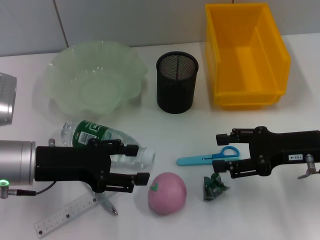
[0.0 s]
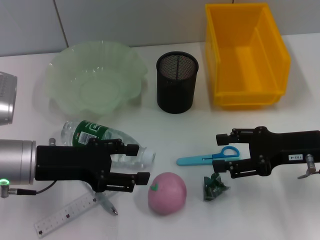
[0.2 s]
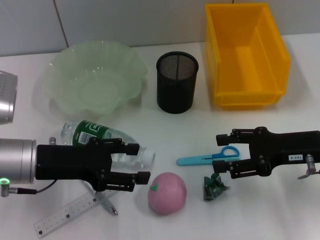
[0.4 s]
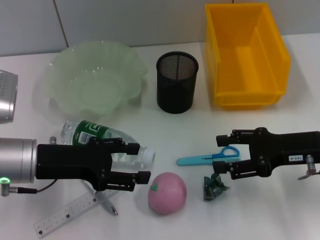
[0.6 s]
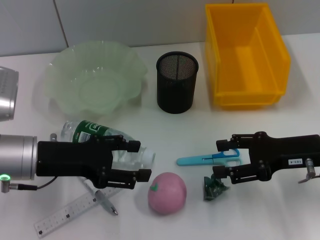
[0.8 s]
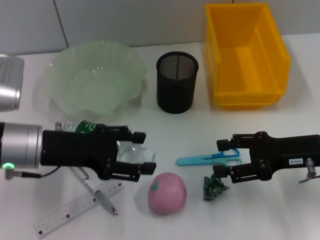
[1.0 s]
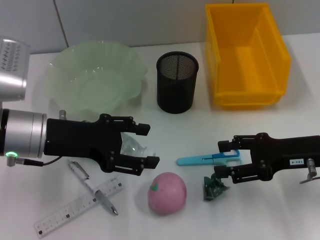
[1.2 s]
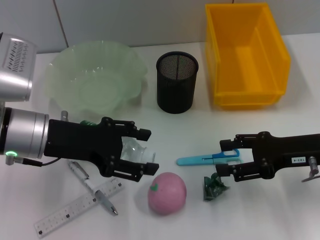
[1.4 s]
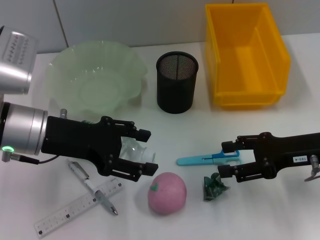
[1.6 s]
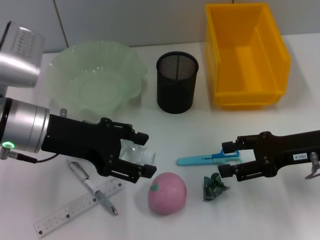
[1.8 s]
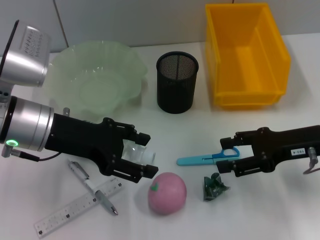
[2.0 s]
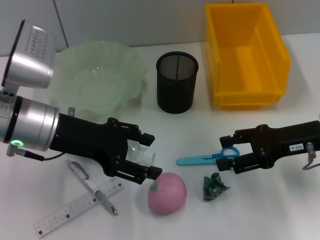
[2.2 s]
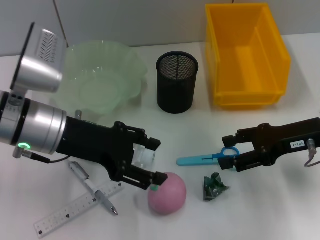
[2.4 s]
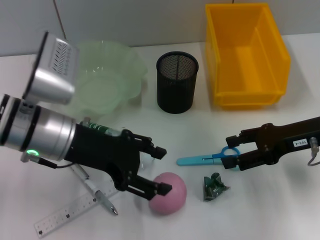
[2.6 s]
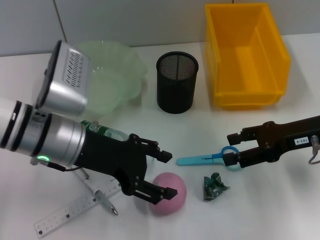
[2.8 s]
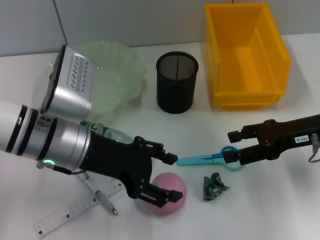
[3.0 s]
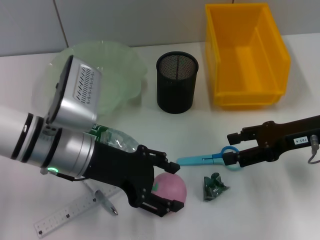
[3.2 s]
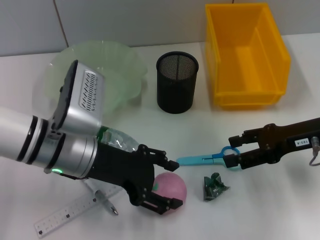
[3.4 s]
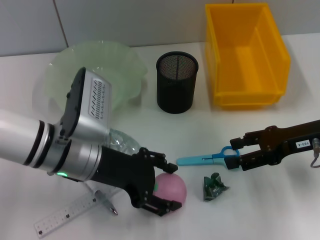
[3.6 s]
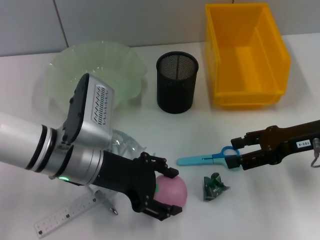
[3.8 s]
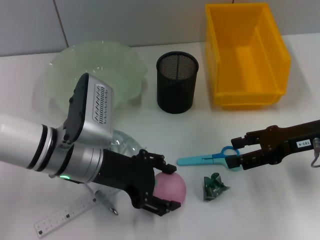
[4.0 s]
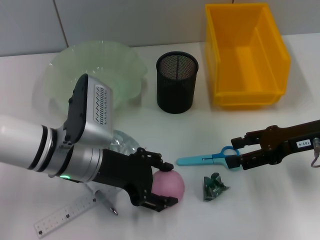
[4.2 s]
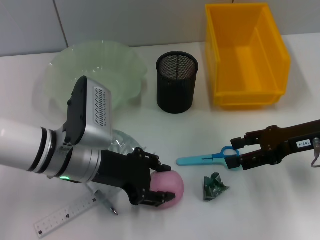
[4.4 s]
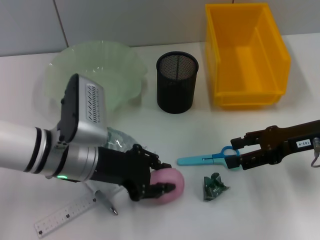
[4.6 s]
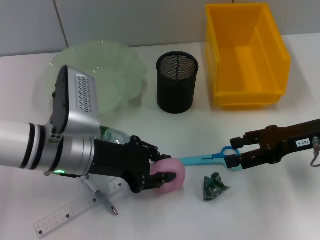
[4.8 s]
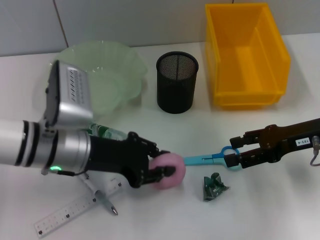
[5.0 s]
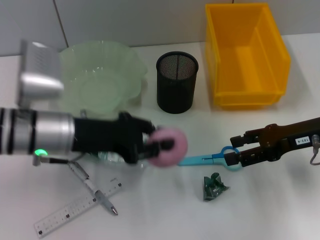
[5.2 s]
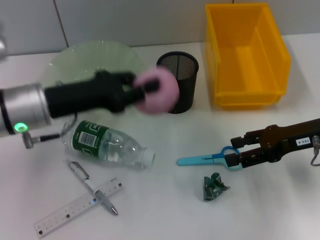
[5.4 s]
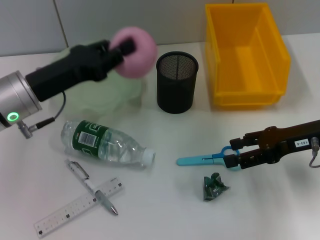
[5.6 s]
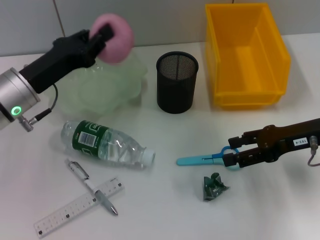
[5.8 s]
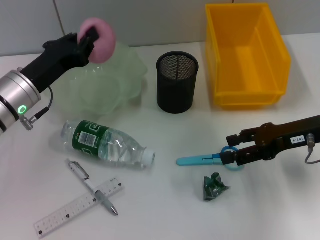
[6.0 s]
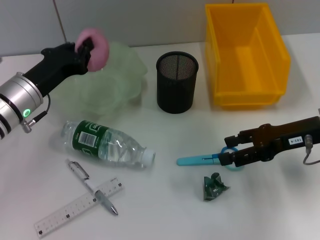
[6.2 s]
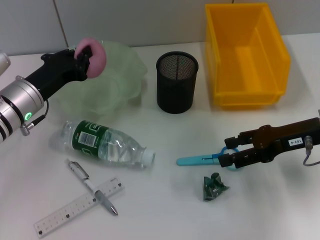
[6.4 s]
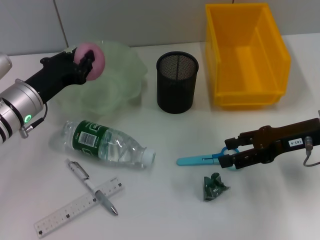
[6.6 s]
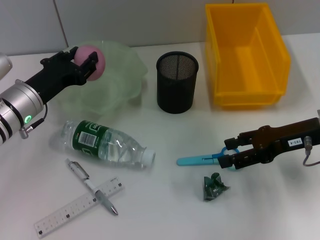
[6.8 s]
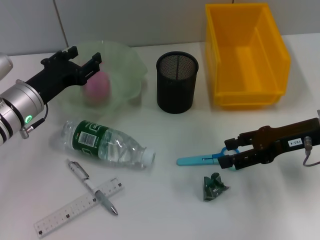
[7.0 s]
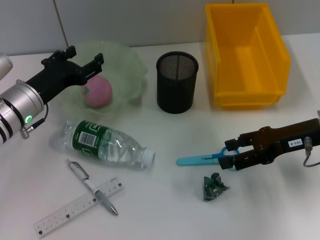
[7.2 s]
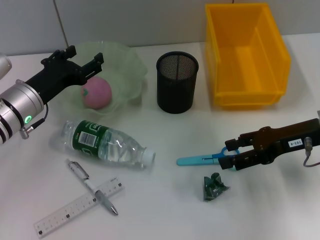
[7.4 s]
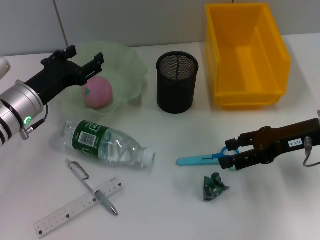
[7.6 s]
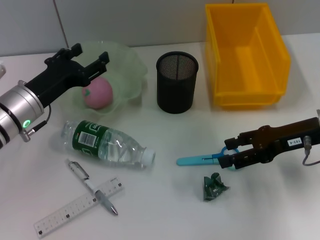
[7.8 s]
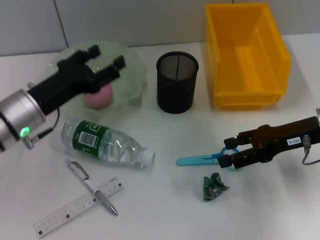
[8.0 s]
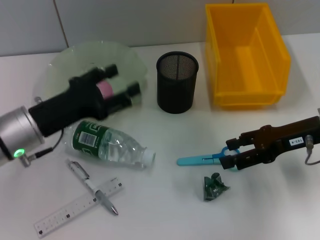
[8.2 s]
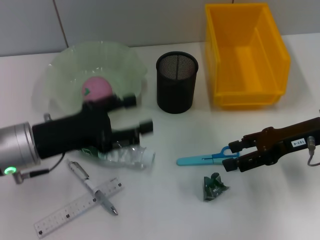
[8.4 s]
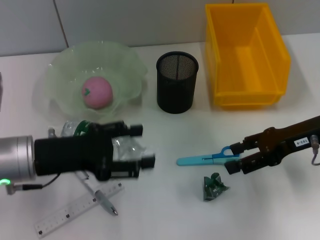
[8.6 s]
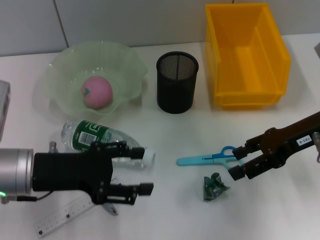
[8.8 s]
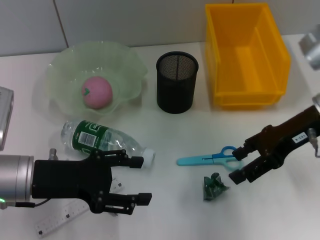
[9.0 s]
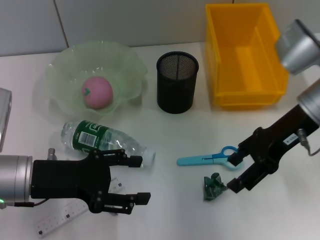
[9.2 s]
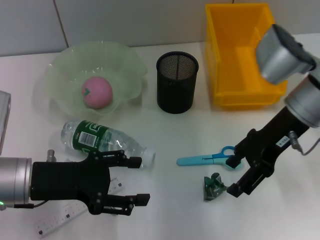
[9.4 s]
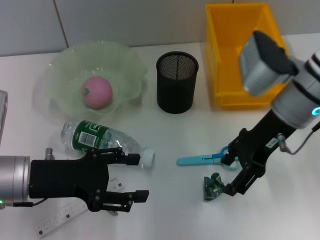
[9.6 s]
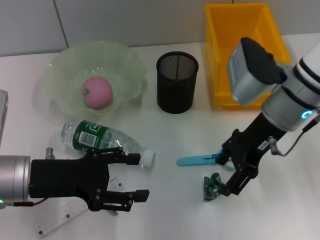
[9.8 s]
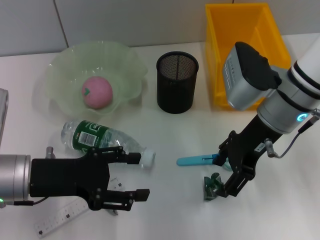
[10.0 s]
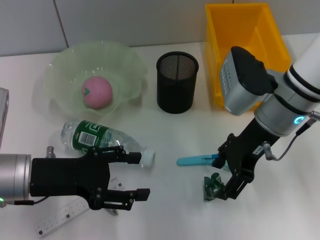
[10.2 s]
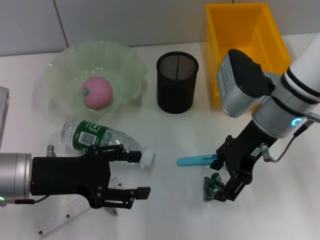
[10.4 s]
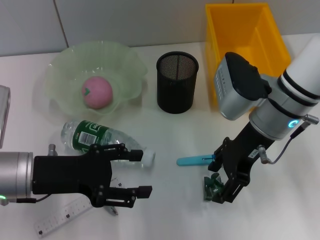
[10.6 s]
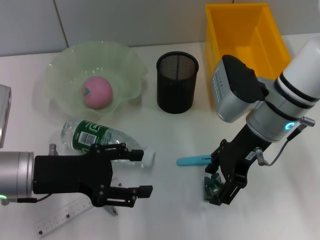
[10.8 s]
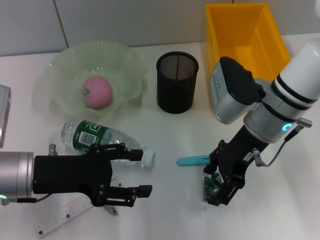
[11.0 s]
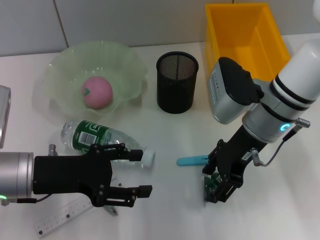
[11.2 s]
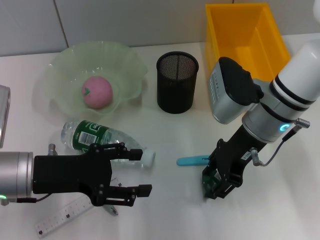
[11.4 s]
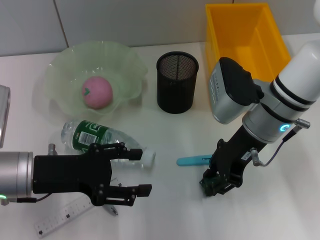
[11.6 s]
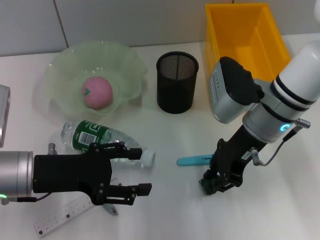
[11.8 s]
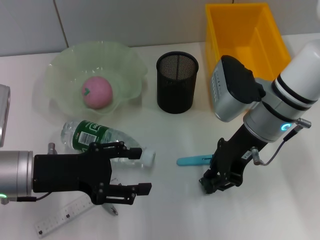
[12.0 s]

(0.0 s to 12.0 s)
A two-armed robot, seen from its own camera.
Step, 0.0 s - 4.4 s: Grab the peach with the left hand.
Step, 4.6 s - 7.0 s: Place the peach into the fruit bowl with the left hand.
Step, 7.2 s - 11.6 s: Grab the plastic with the right hand.
0.0 s - 1.6 s: The left gripper ends up roughly 5 cm from where it was.
1.6 s - 3.0 s: The left gripper moves some 5 cm.
3.0 s - 4.4 s: There are only small adjustments of the grippers.
4.4 s - 6.0 s: The left gripper goes approximately 10 cm to the left and forward, and closes.
6.0 s - 7.6 s: The left gripper opens.
7.6 s - 9.0 s: The left gripper heads backward, covering approximately 10 cm. Meanwhile the right gripper changes place by some 5 cm.
9.0 s - 10.4 s: The right gripper moves to the left, some 10 cm.
10.4 s - 12.0 s: The right gripper closes its fingers.

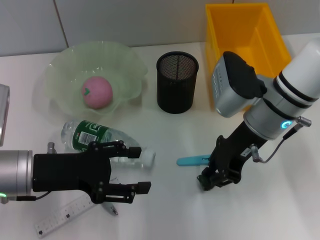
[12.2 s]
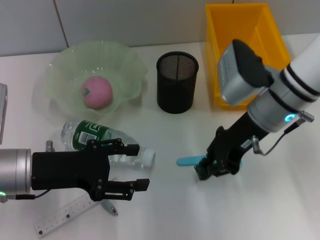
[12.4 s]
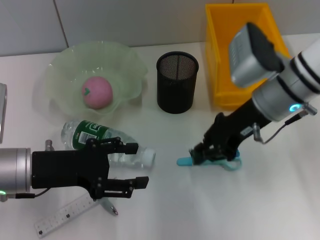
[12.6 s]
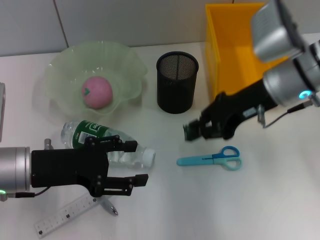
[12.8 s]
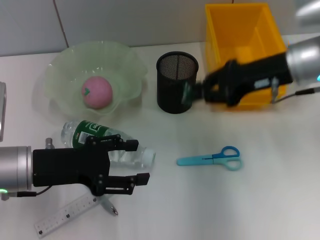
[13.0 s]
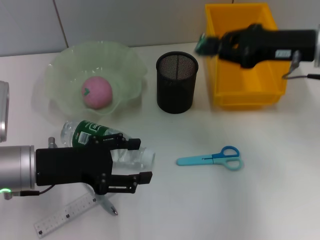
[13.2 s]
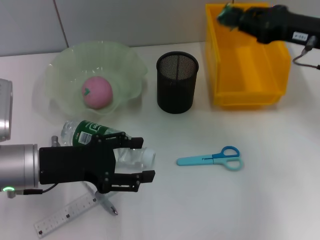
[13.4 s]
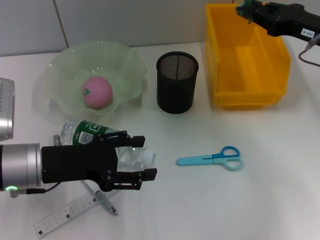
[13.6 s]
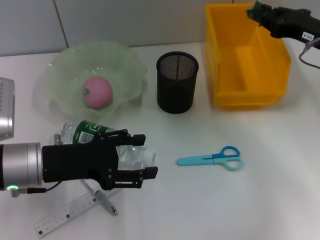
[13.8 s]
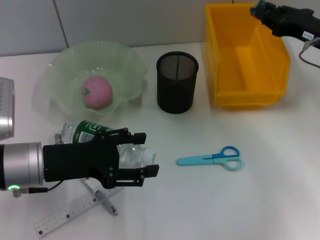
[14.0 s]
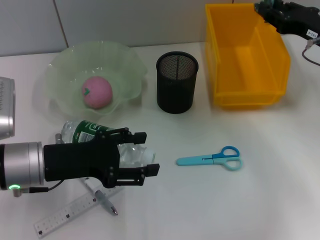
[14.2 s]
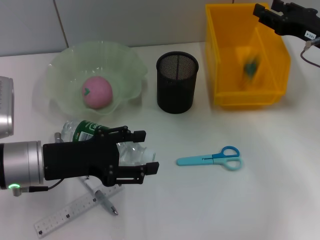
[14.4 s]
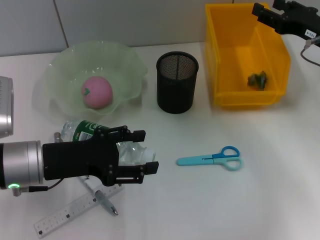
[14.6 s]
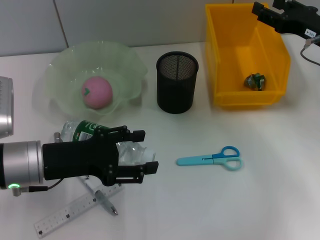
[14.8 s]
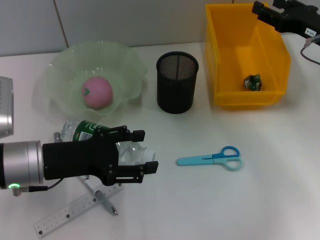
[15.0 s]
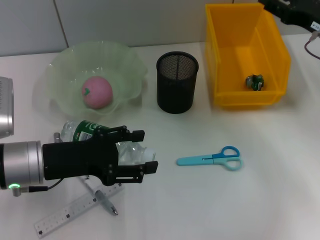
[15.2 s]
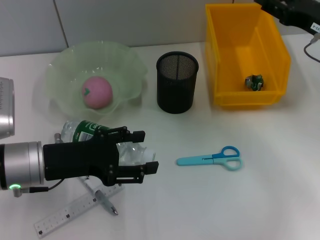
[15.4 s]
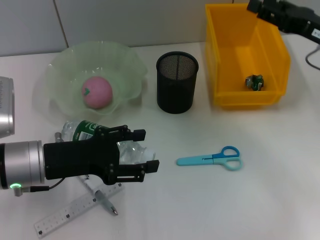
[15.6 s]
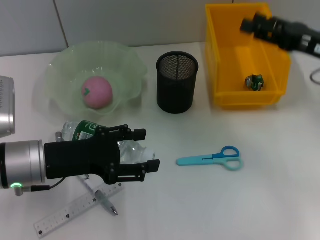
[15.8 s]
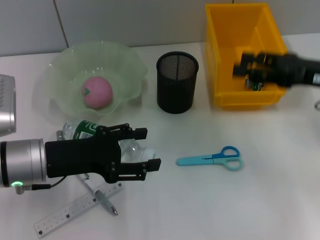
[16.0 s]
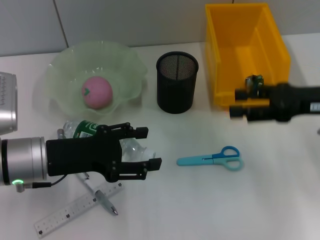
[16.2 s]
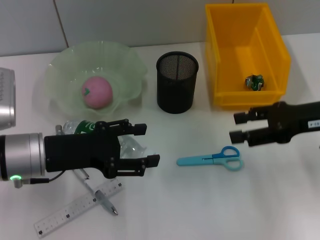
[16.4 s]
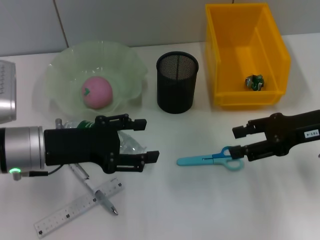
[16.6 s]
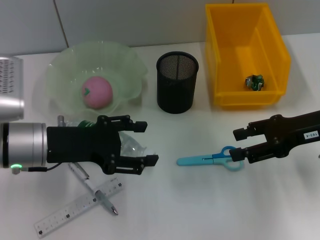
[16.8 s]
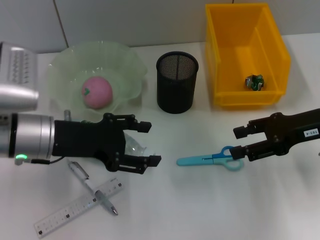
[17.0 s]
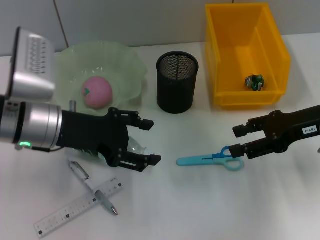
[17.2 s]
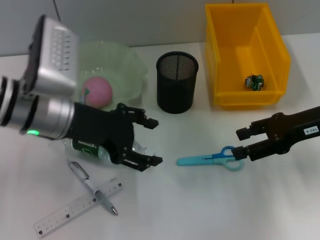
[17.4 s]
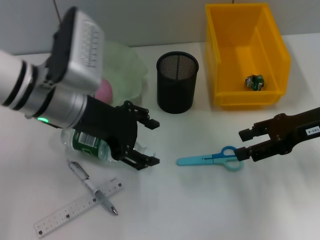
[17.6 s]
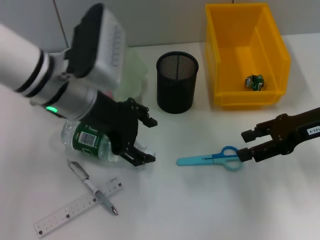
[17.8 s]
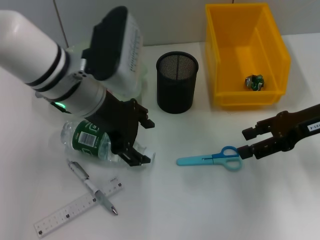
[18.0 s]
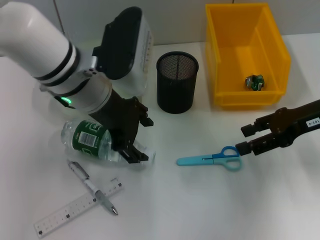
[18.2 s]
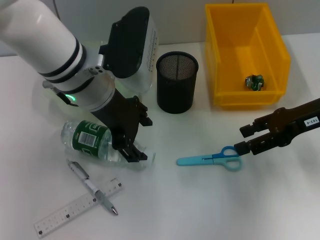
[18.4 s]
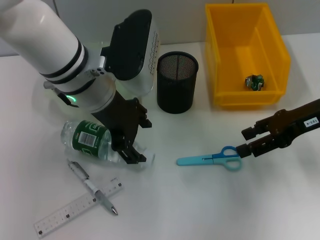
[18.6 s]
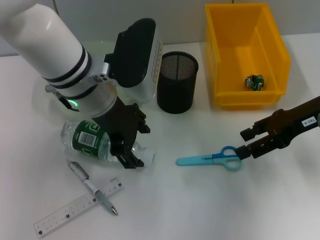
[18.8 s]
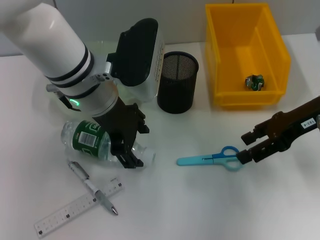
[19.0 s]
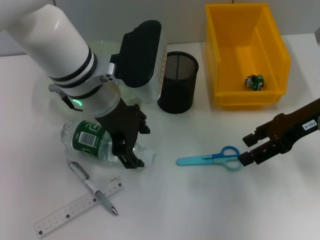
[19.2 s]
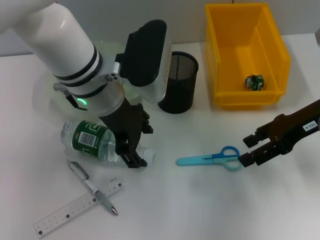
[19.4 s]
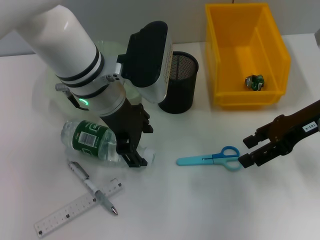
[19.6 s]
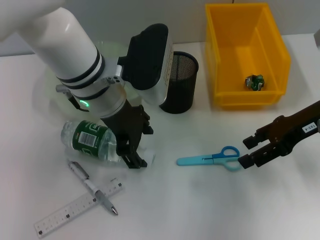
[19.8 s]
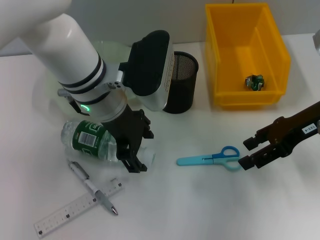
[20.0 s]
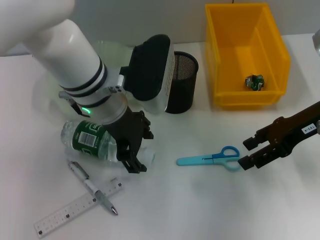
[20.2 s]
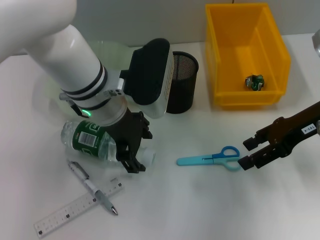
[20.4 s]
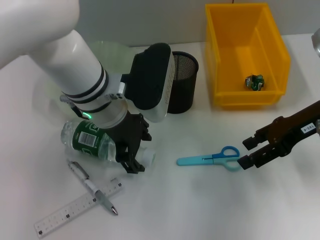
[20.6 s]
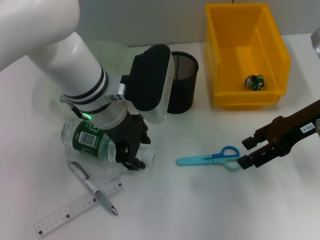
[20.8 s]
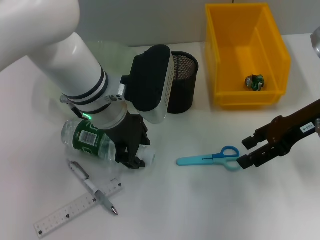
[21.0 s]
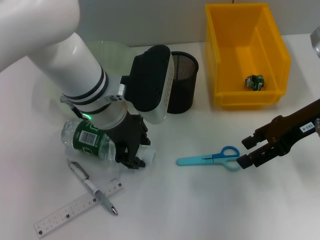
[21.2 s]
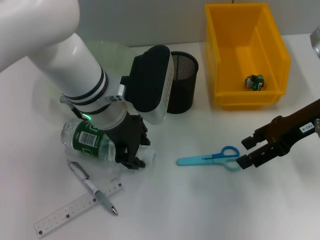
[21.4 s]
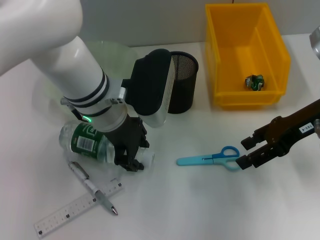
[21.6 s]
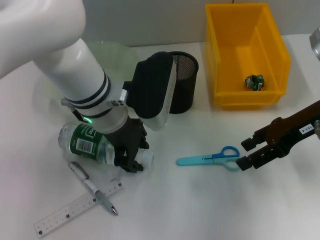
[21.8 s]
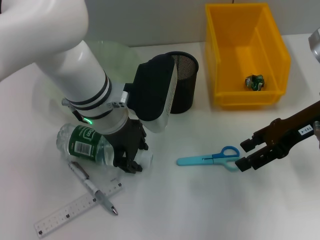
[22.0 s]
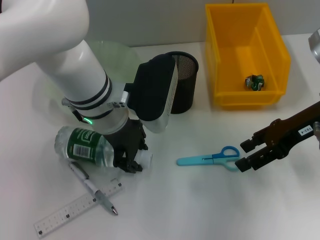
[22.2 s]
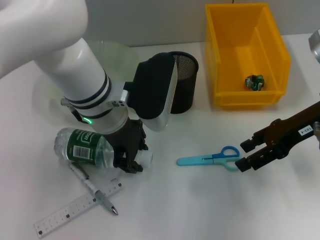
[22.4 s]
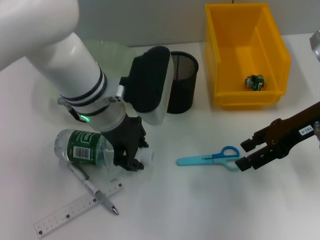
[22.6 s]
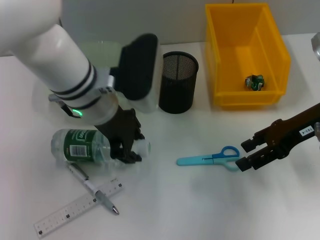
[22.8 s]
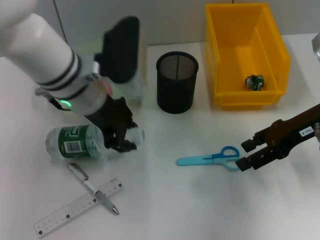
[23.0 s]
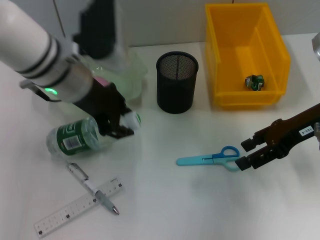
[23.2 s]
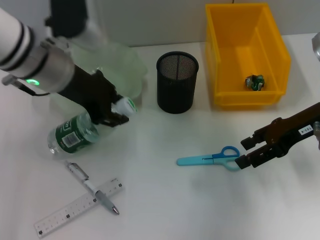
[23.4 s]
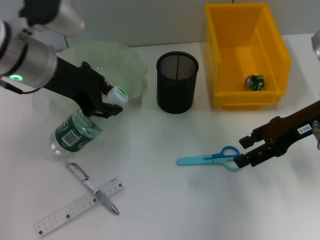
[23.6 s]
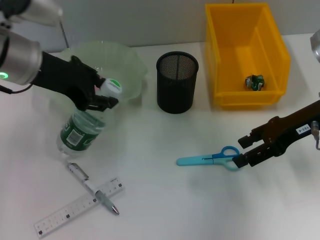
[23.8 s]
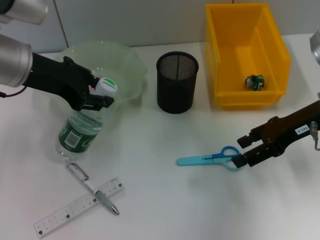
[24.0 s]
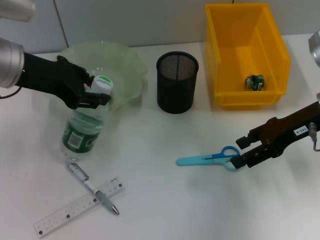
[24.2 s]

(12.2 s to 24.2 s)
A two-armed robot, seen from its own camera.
Step, 12.2 s - 14.6 s: Place the plastic into the trash can with the right hand.
Step, 14.8 s - 21.6 s: Grab the water bottle with the left hand.
12.2 s - 13.8 s: The right gripper goes some 15 cm to the right.
13.8 s - 15.2 s: The right gripper opens up.
15.2 s - 16.6 s: The right gripper is displaced backward by roughly 5 cm.
16.6 s - 18.2 s: The left gripper heads to the right, upward and forward, covering some 15 cm.
18.2 s - 21.2 s: The grippers move only a little.
21.2 s - 22.6 s: Both grippers stay put.
22.6 s - 24.2 s: The left gripper heads to the left and upward, covering roughly 15 cm.
